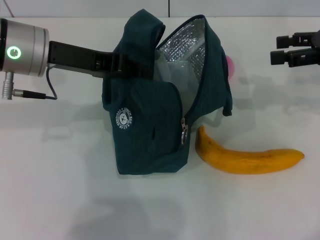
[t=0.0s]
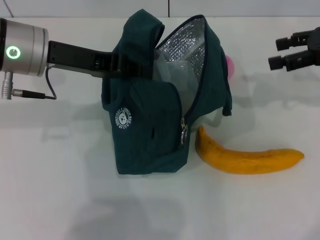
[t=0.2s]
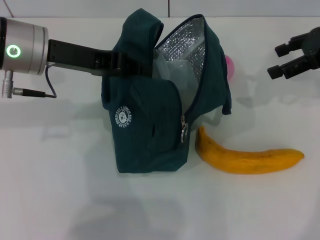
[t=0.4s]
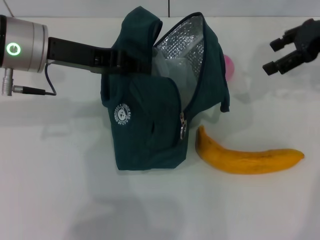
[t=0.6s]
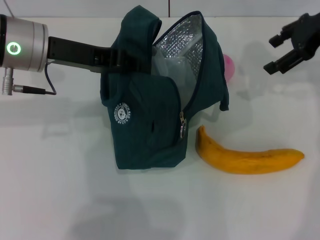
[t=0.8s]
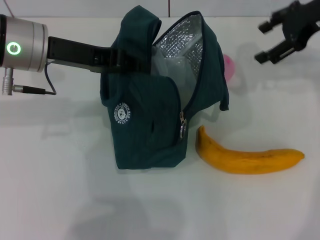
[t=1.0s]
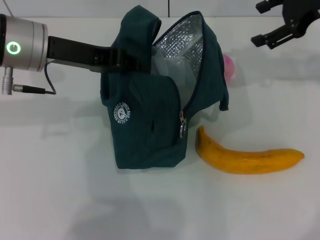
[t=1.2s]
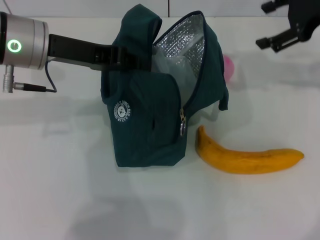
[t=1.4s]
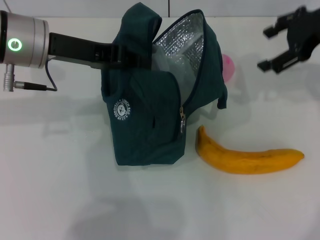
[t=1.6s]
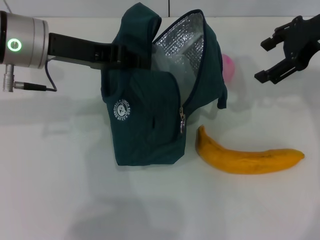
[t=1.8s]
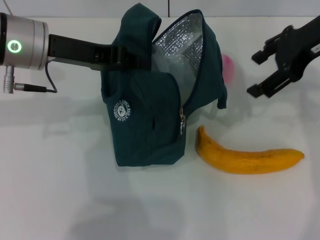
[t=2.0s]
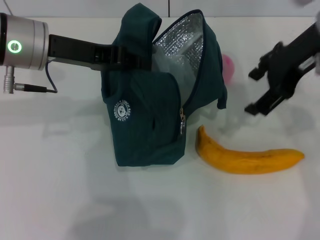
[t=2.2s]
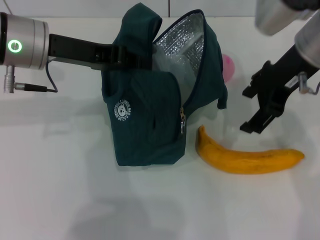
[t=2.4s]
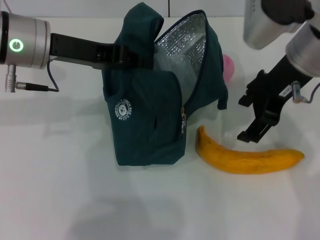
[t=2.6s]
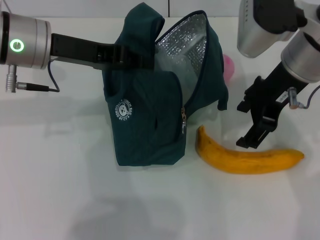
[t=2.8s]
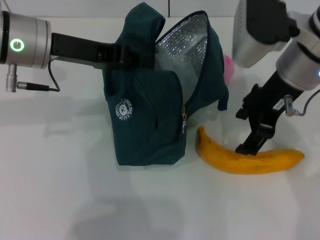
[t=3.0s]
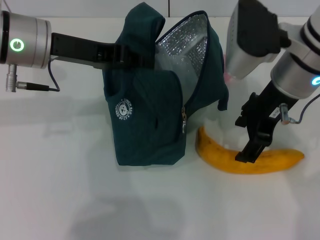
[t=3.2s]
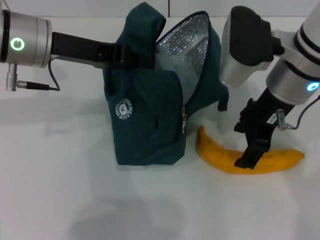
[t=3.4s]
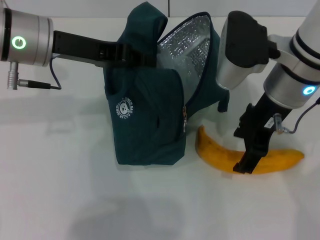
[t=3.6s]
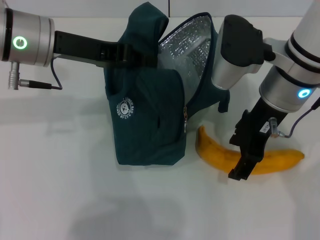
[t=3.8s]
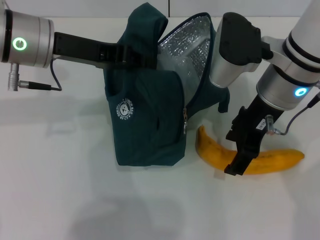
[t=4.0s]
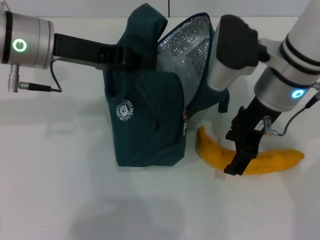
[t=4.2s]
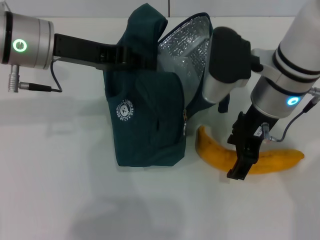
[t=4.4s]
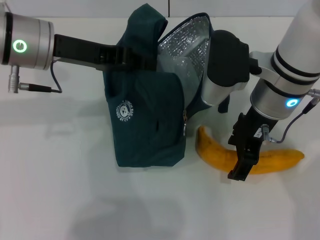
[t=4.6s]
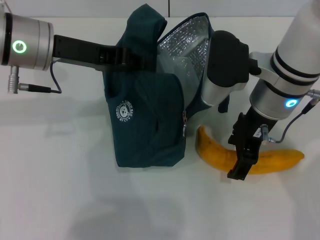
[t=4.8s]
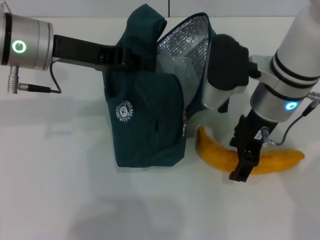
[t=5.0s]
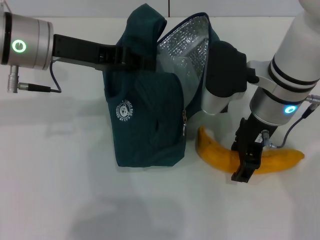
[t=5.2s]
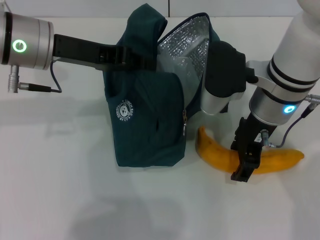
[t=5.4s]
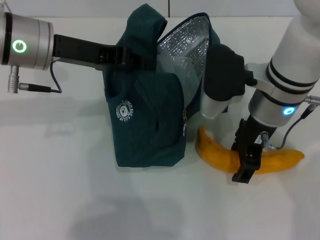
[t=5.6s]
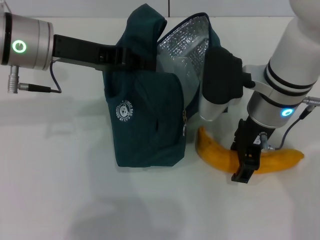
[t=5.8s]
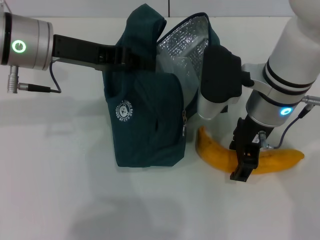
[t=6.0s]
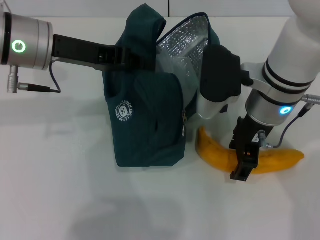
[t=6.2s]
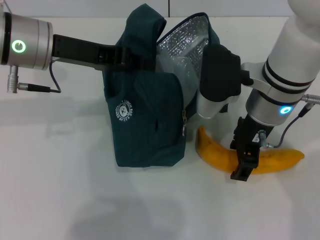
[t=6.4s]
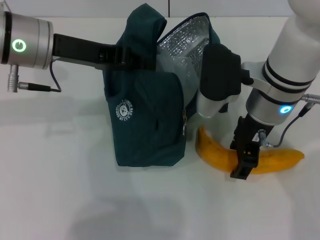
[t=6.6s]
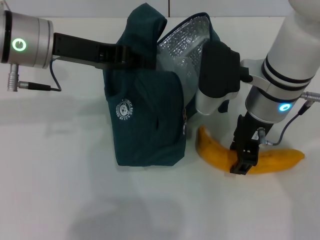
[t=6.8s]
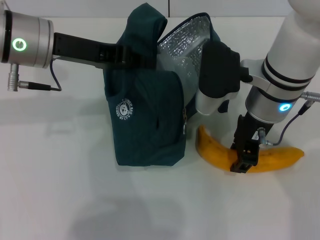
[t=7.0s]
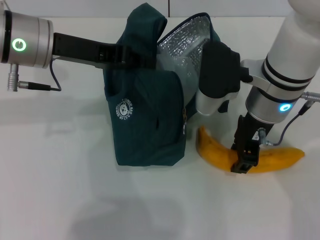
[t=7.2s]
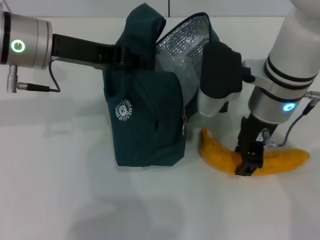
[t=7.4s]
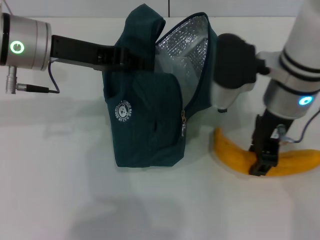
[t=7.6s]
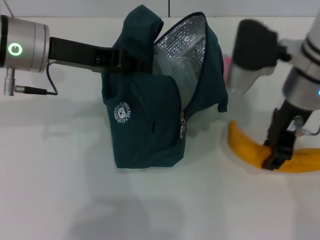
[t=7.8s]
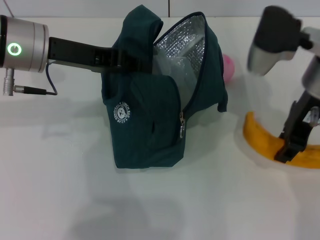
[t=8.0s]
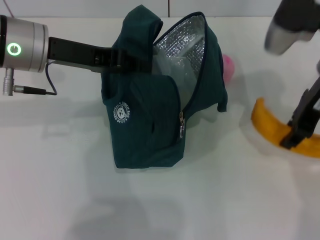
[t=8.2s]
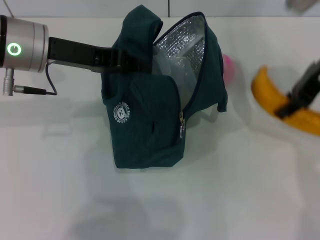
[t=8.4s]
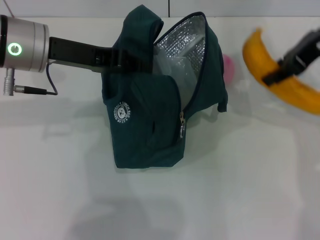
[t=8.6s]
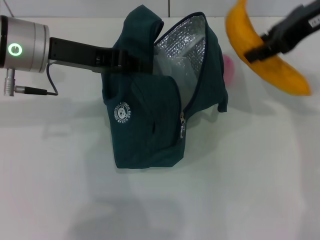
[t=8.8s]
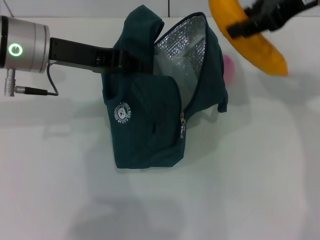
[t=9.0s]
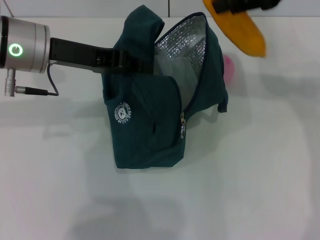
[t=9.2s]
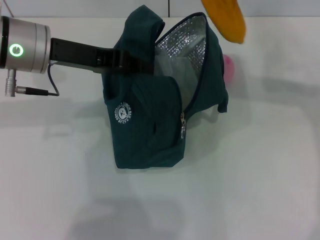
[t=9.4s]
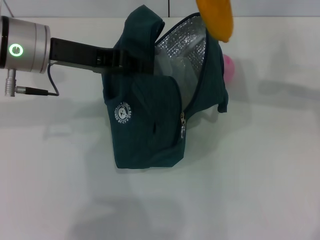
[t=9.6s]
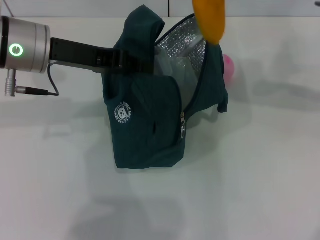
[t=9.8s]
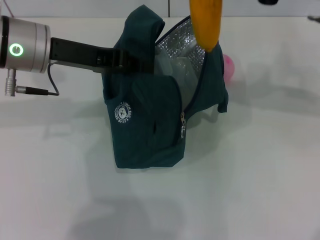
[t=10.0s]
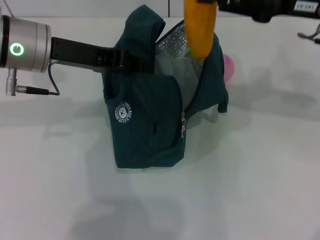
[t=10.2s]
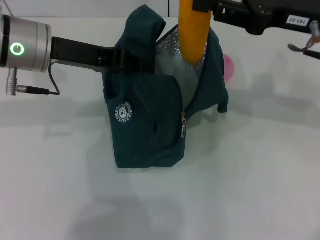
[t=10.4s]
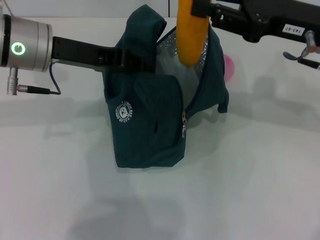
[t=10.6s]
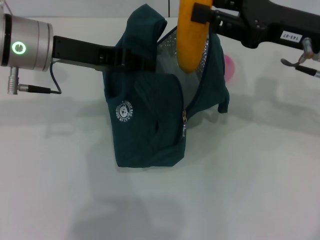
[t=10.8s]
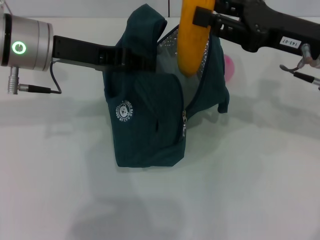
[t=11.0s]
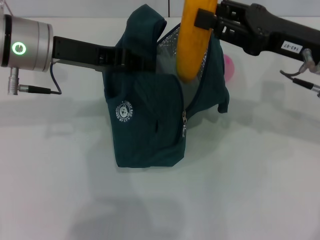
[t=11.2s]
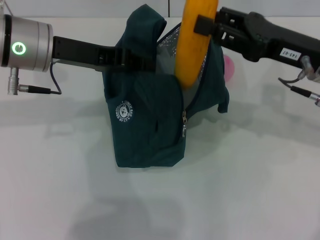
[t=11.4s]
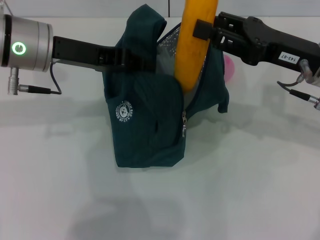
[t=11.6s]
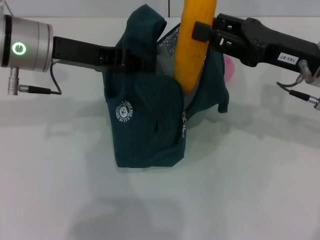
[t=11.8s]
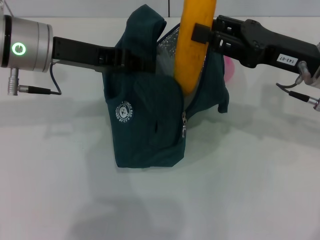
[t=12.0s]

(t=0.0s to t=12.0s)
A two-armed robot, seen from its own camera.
Step, t=0.0s - t=7.2s: Take the banana with your right hand.
t=0.0s - t=1.6s: The right gripper shifts about 10 cm to the left and upward.
t=1.6s - t=3.0s: The right gripper heads to the left and backward, covering some 15 cm.
t=3.0s - t=4.4s: The grippers move only a little.
t=4.4s - t=6.0s: The grippers move only a little.
t=6.0s - t=7.6s: The right gripper closes its fingers.
t=7.6s - t=9.0s: The right gripper shifts approximately 15 cm upward and to the right.
t=9.0s - t=10.4s: The right gripper is displaced downward by some 10 cm.
t=10.4s - t=12.0s: The right gripper is displaced downward by about 5 cm.

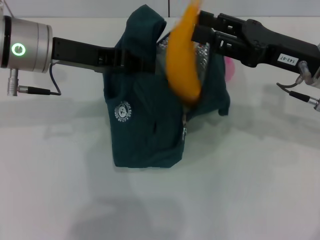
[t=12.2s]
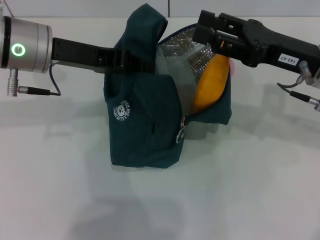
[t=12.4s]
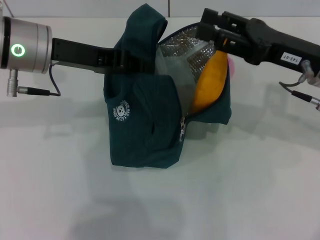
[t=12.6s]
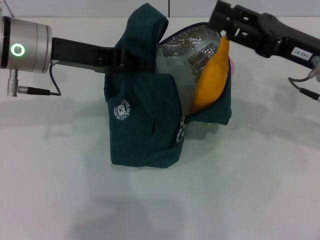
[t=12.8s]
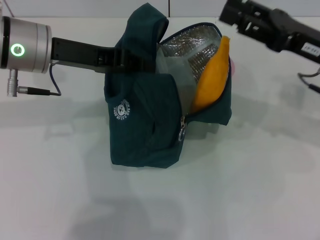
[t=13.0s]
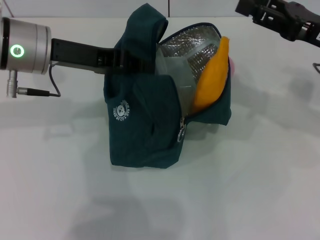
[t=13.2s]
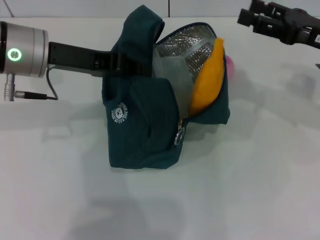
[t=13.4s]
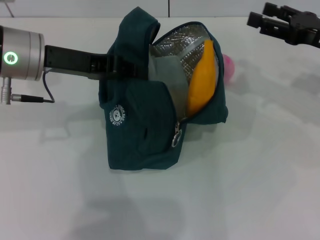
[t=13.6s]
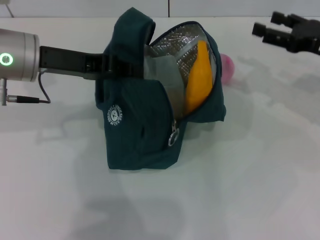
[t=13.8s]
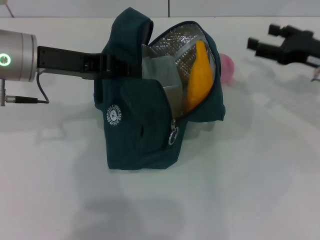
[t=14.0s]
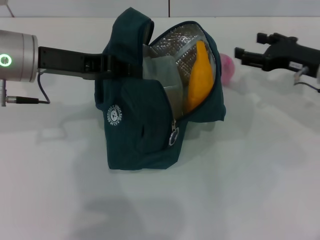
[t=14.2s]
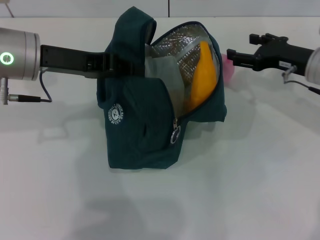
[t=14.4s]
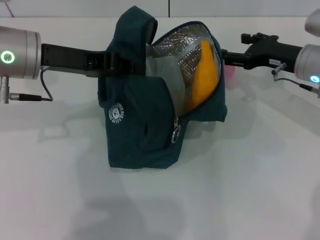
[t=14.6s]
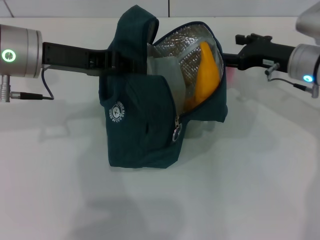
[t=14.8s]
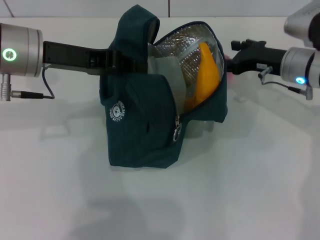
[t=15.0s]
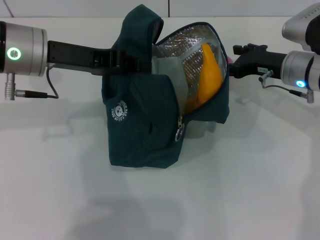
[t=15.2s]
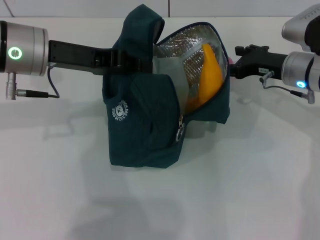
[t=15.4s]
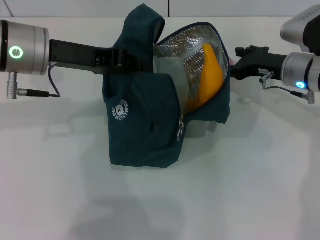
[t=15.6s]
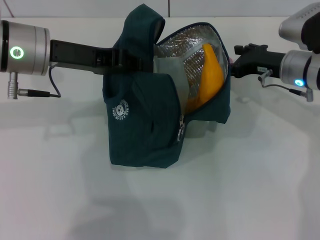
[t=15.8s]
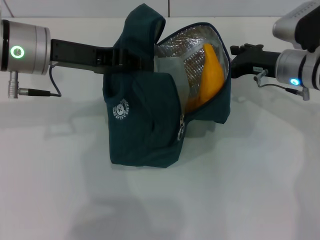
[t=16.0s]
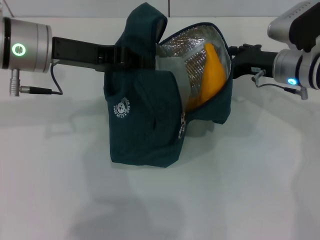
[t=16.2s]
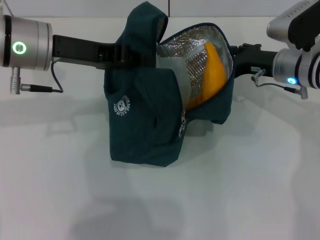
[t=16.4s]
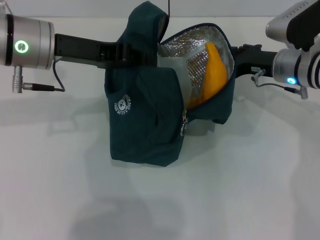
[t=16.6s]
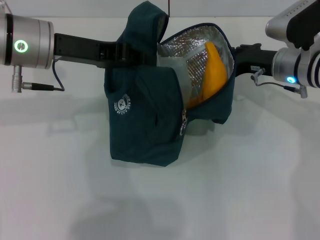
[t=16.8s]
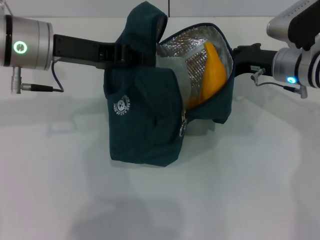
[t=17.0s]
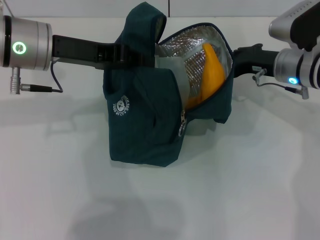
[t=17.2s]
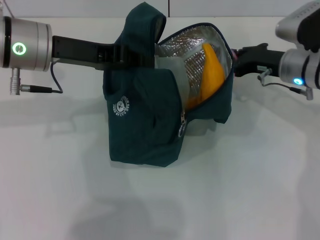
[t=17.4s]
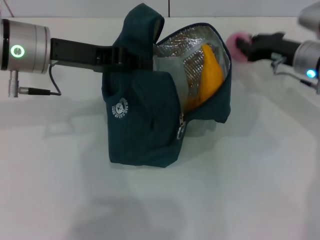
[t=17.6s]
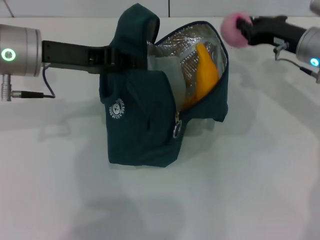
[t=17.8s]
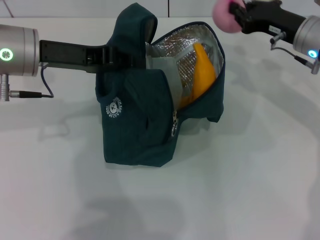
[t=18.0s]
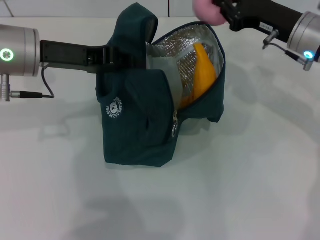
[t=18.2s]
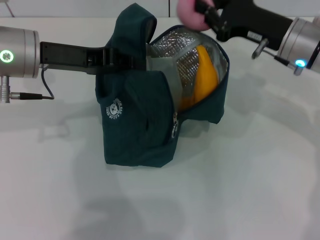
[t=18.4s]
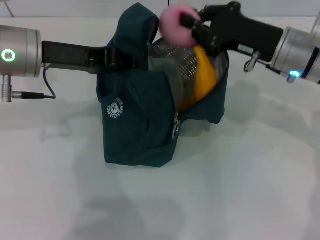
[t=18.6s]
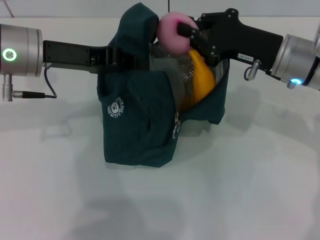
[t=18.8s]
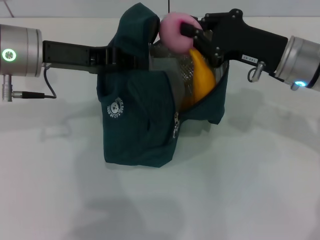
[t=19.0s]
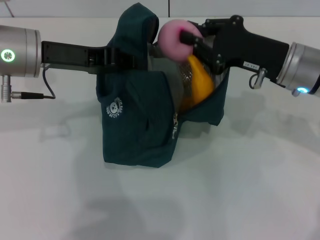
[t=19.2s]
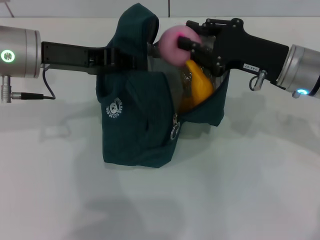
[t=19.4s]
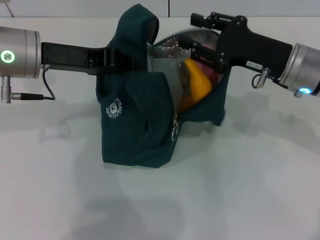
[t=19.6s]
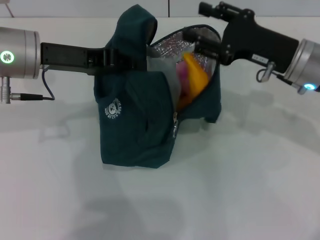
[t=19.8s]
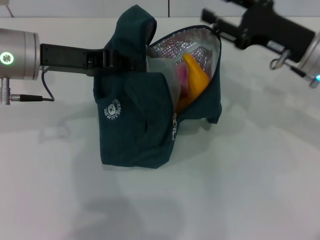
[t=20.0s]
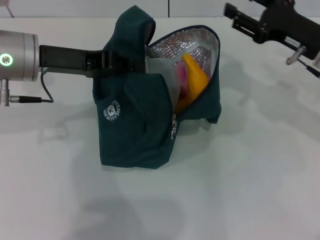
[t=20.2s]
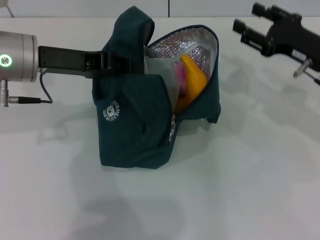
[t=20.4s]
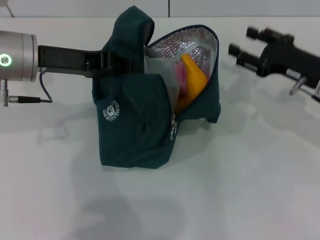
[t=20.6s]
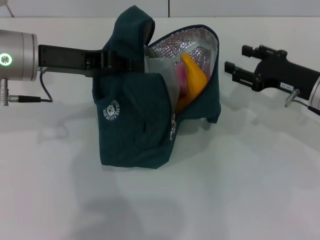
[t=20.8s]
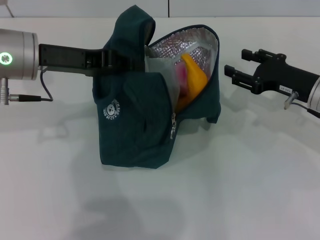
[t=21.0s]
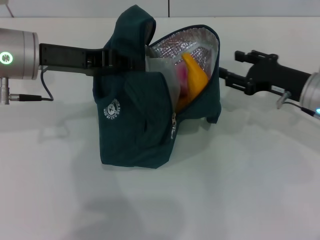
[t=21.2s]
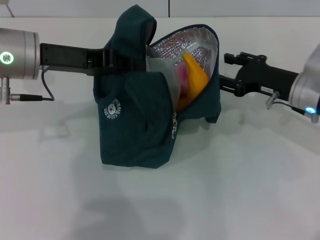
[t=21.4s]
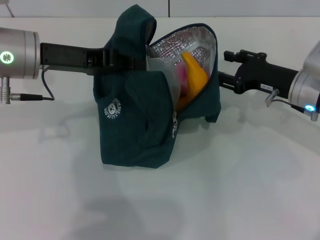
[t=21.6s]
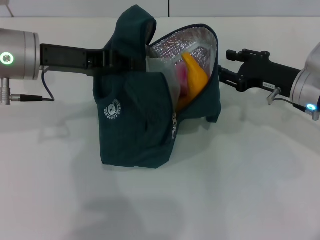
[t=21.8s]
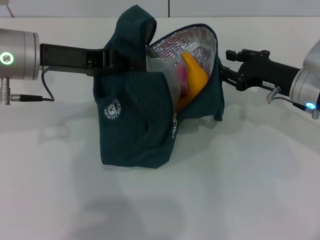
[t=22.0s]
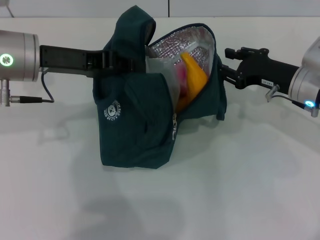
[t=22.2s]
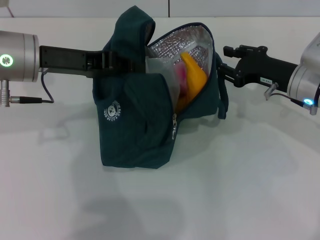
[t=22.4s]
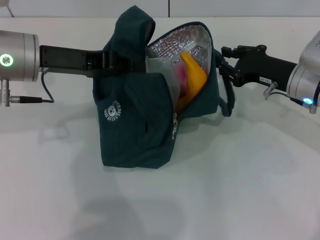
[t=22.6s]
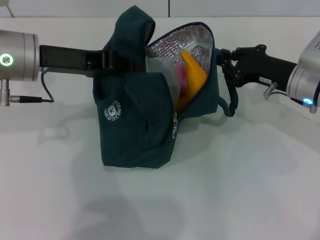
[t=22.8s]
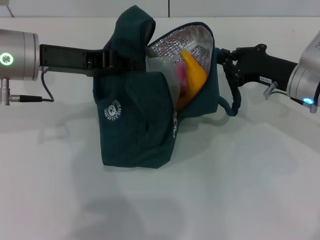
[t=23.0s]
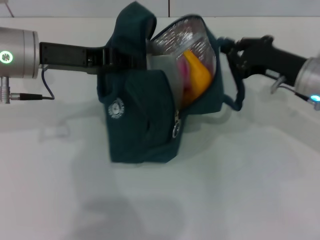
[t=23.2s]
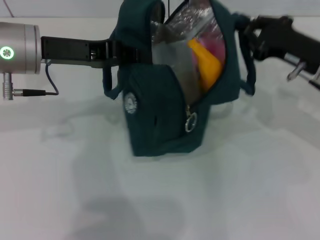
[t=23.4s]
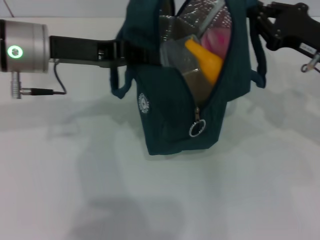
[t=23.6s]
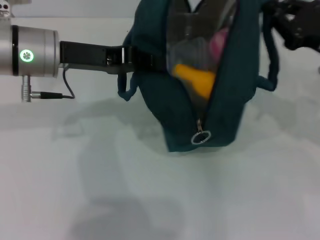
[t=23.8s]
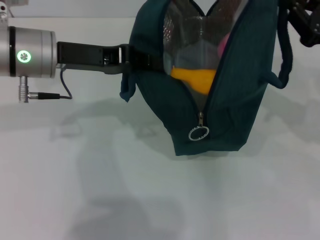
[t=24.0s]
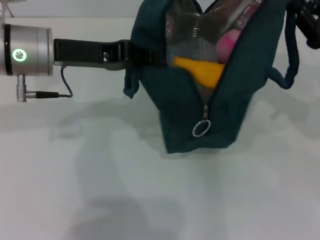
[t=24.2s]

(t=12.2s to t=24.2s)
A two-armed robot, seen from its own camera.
Step, t=12.8s - t=17.0s: Grab the peach with your right hand.
Step, t=17.4s - t=19.8s: Secure the lunch bag with your left hand.
t=12.2s - t=13.8s: The right gripper goes roughly 10 cm to the right, and opens up.
t=13.8s - t=15.2s: The right gripper travels to the left by about 10 cm.
t=15.2s - t=16.6s: The grippers make only small movements.
t=16.6s - t=18.2s: The right gripper goes about 5 cm upward, and closes its fingers.
t=18.2s - t=19.8s: The right gripper opens its fingers.
t=19.8s - t=21.2s: The right gripper travels downward by some 5 cm.
t=21.2s - t=22.6s: The grippers make only small movements.
t=22.6s - t=24.2s: The right gripper goes approximately 10 cm to the right and upward.
